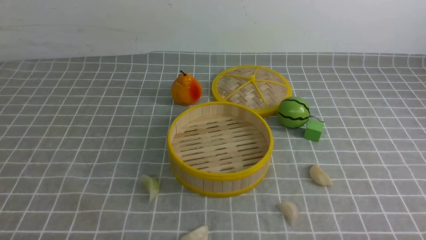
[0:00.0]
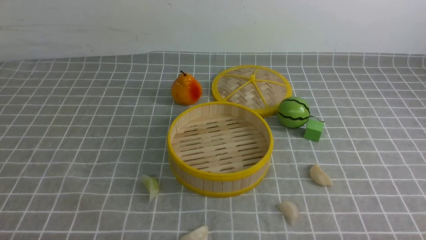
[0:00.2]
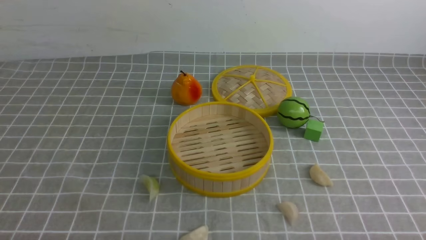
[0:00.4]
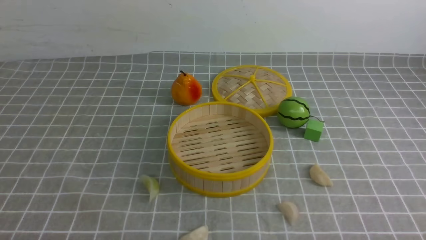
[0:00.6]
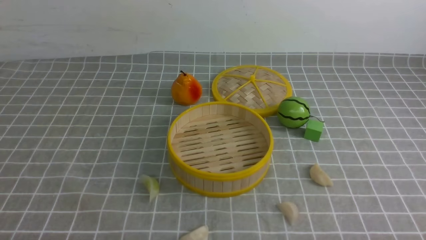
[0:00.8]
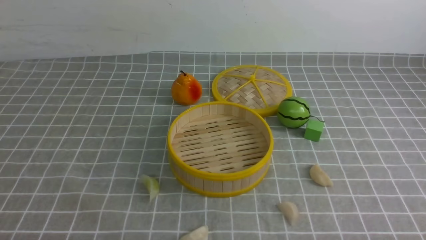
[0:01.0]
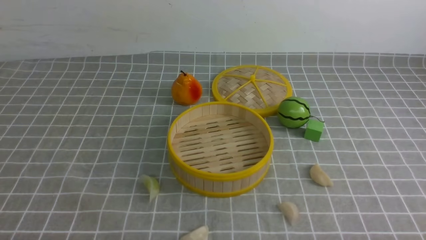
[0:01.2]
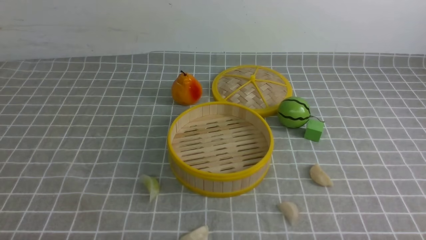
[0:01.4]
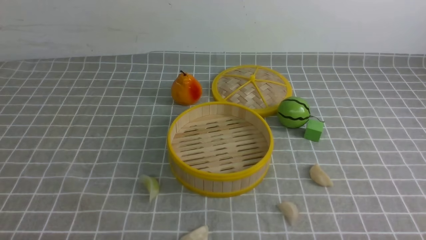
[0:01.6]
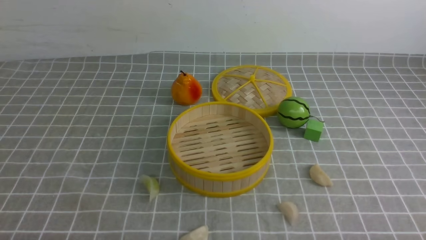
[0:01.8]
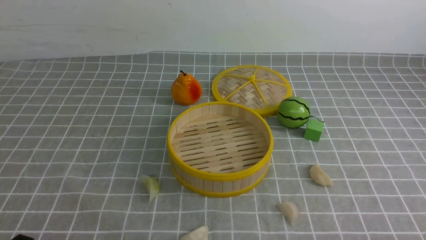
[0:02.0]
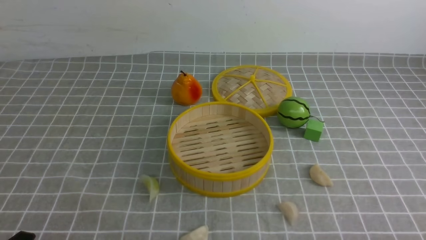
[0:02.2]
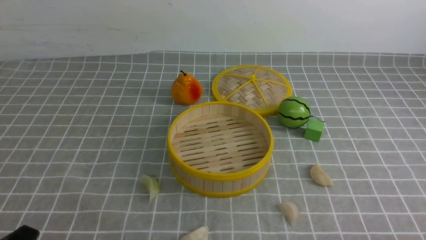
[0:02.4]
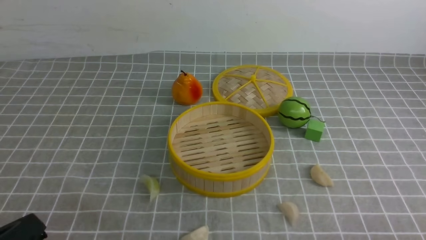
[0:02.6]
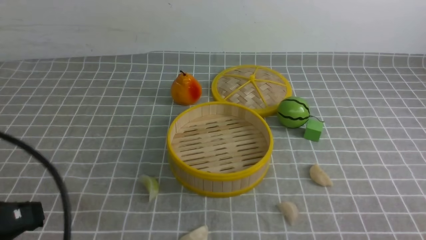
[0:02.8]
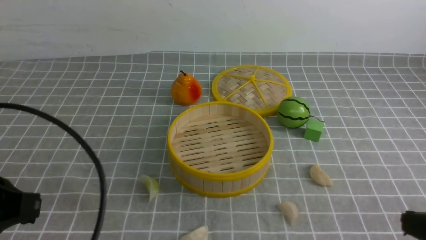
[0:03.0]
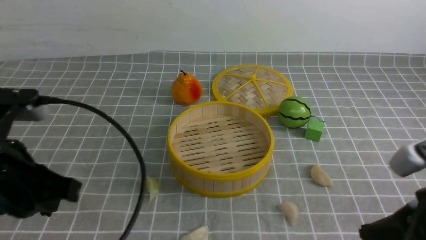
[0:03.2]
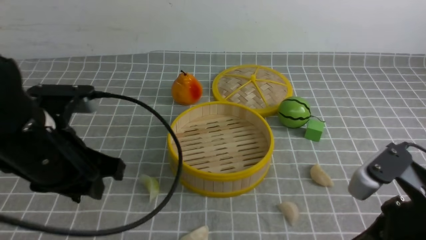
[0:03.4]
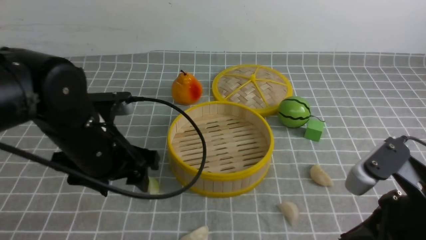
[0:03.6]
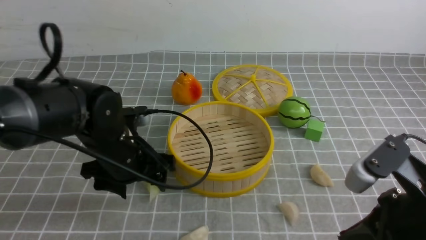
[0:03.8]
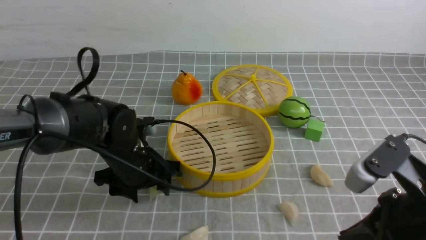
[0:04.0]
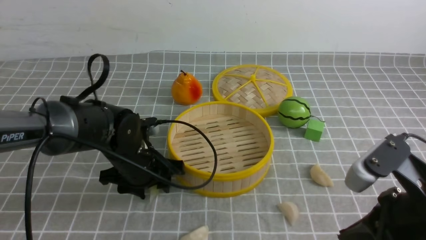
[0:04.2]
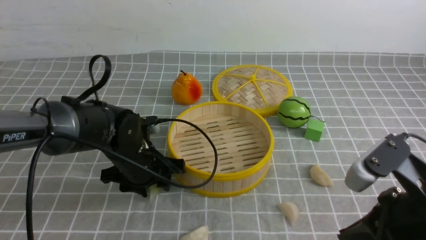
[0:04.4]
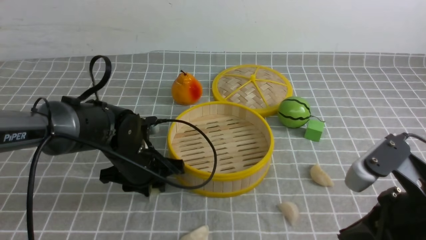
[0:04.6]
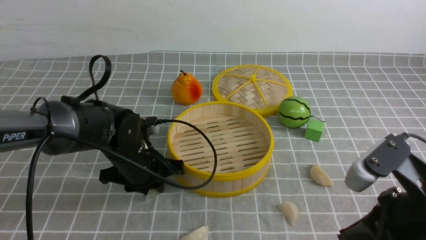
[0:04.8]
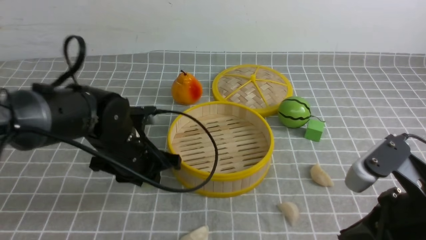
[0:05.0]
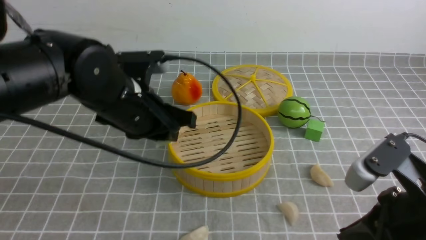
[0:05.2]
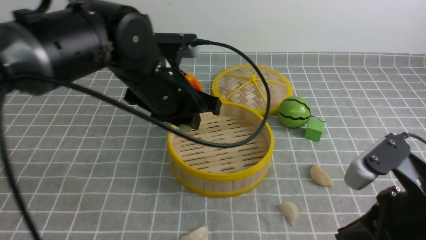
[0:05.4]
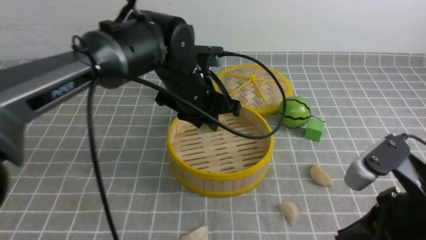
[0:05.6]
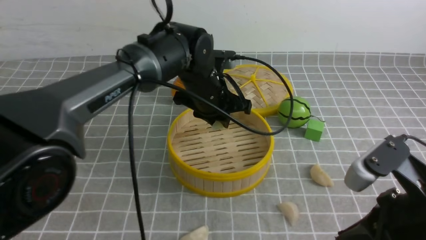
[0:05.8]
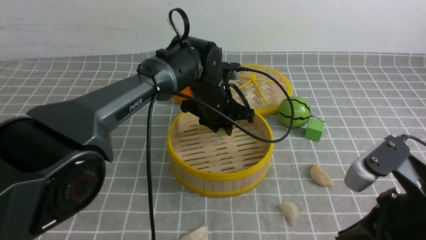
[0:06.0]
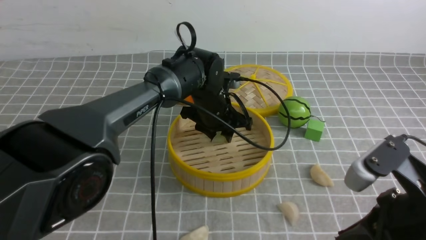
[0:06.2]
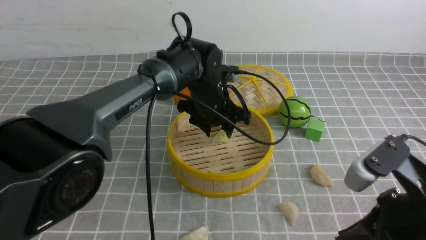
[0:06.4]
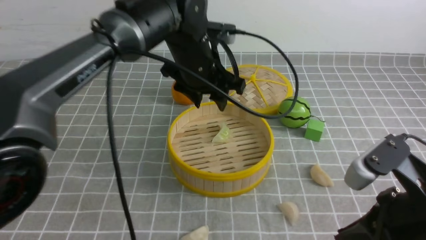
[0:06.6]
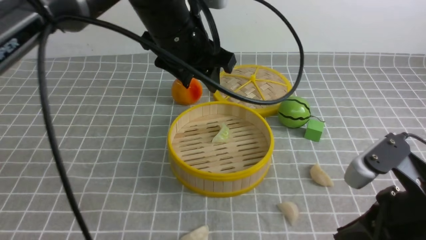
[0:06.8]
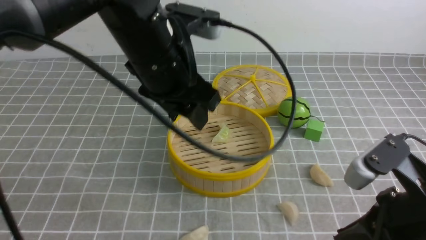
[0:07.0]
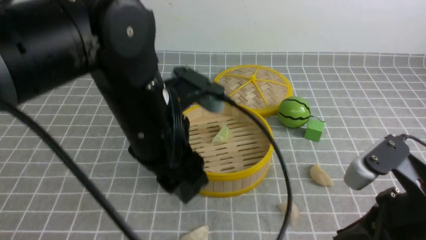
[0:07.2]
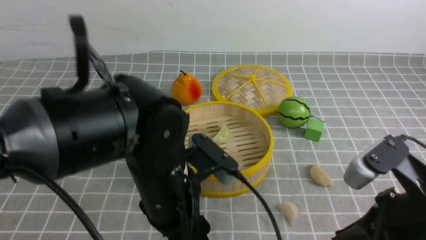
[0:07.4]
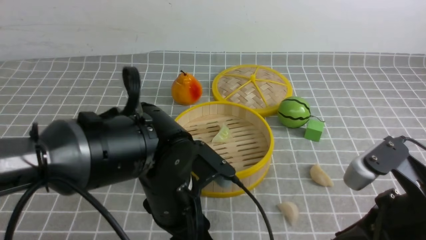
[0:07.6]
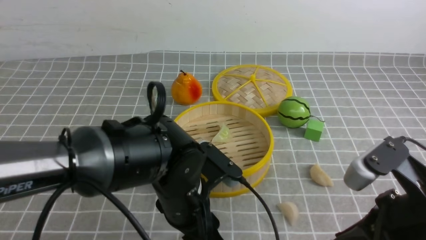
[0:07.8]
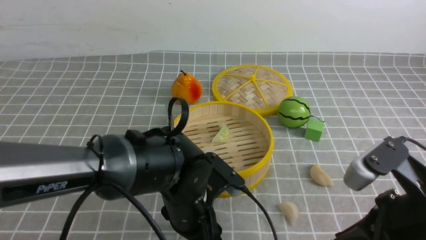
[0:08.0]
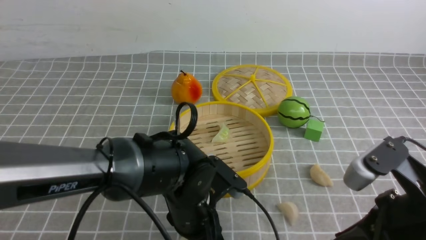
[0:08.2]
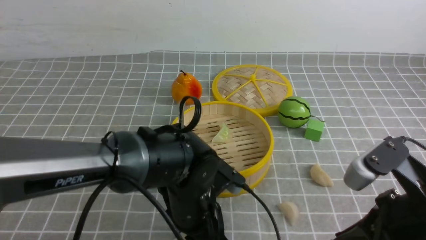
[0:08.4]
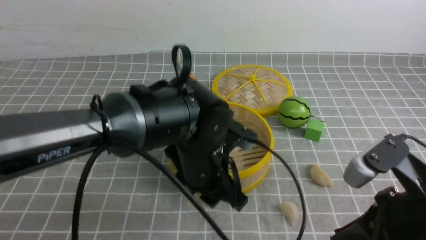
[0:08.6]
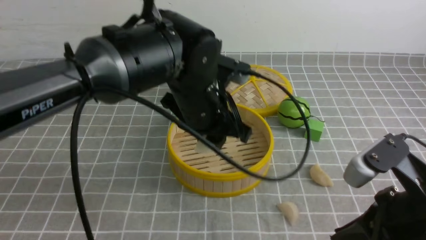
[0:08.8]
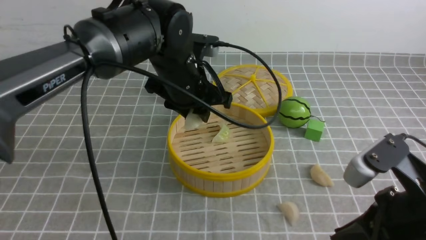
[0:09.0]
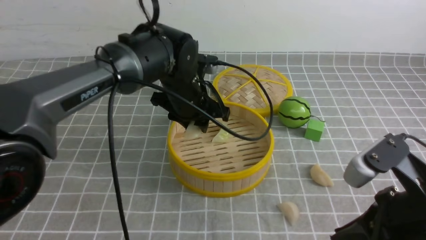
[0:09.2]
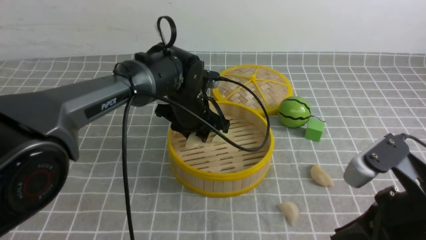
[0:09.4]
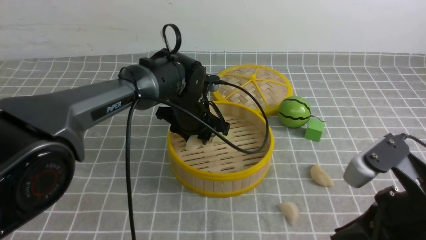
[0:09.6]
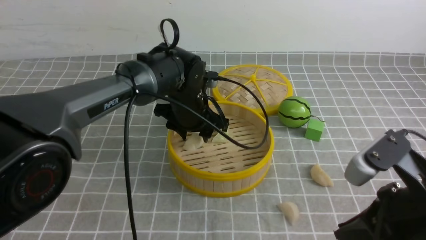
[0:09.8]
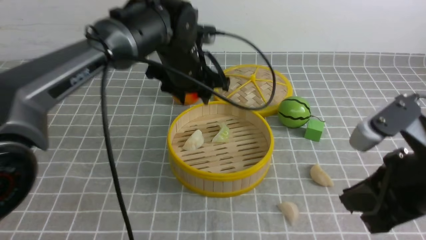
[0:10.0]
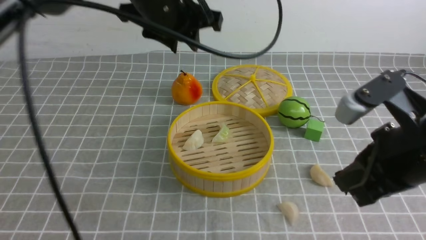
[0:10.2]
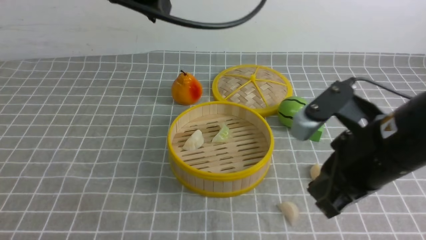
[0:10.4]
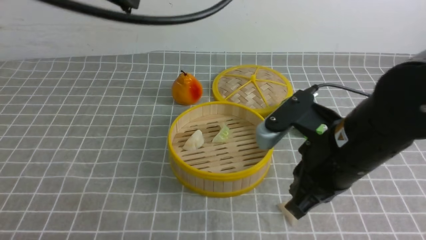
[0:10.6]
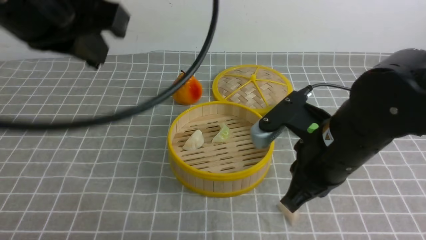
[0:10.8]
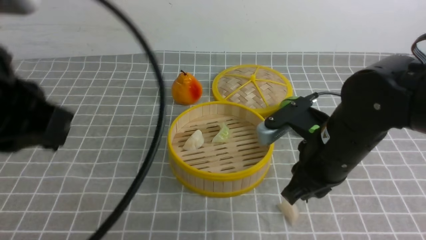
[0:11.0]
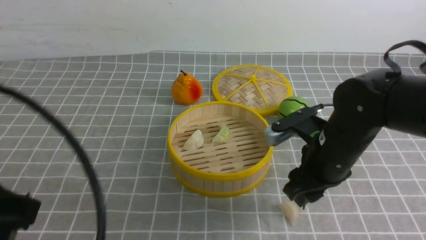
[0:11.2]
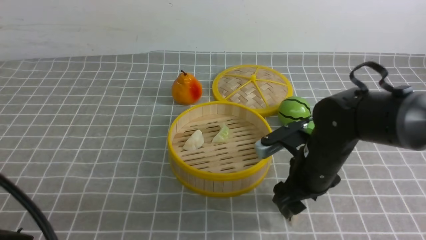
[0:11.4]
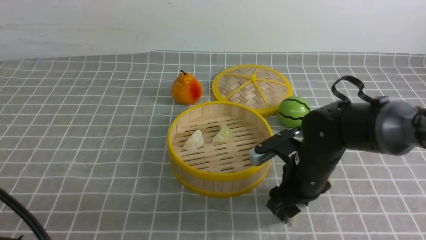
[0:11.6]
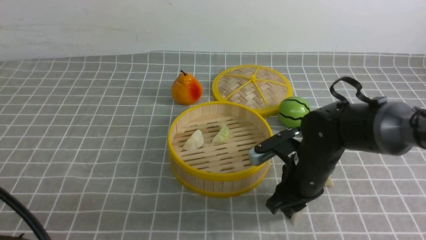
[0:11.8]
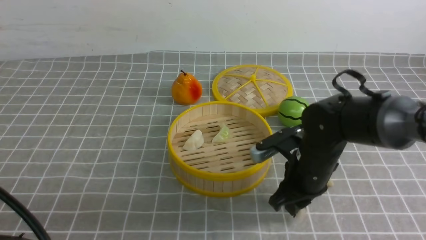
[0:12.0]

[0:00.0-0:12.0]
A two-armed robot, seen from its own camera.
Task of the whole recording: put the dumplings into the steamer on the table with the grey tablecloth.
Step, 0.0 to 4.8 s: use the left arm to grab a dumpling.
Step, 5.0 to 6.6 s: use the left arm to put the dumpling into the steamer.
Step, 6.8 to 8.2 s: use the left arm to grab a dumpling.
Step, 8.4 to 9.8 s: use the left arm to put the dumpling into the steamer.
Step, 10.2 to 12.0 s: use the right arm to grab a dumpling.
0.0 to 1.6 s: Both grippers stay put.
1.6 to 3.0 s: The grippers both shift upward and forward by approximately 15 cm. The left gripper closes up, while the right gripper closes its fingers.
3.0 to 4.4 s: The right gripper moves to the left, some 5 cm. The left gripper shifts roughly 30 cm forward, downward and to the right, and opens its fingers.
4.4 to 6.0 s: The left gripper goes approximately 15 cm to the right, forward and upward.
6.0 to 7.6 s: The left gripper goes some 20 cm backward, and opens.
7.6 to 9.0 s: The left gripper is displaced forward and upward by about 15 cm.
9.0 to 10.4 s: The right gripper heads forward, covering roughly 5 cm; the left gripper is displaced upward by about 20 cm.
10.4 to 12.0 s: The left gripper shifts roughly 30 cm backward, downward and to the left; the right gripper heads downward and forward, covering roughly 15 cm, and opens its fingers.

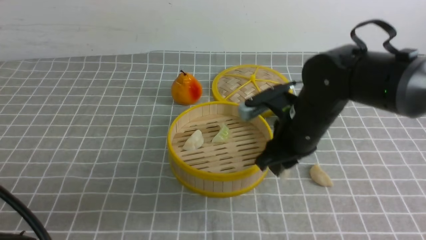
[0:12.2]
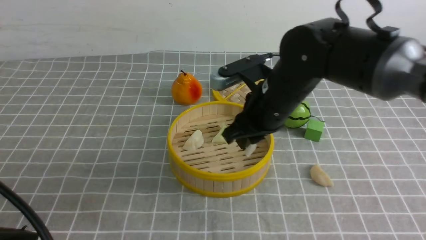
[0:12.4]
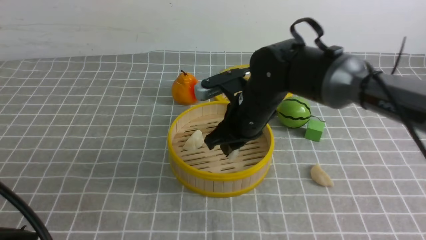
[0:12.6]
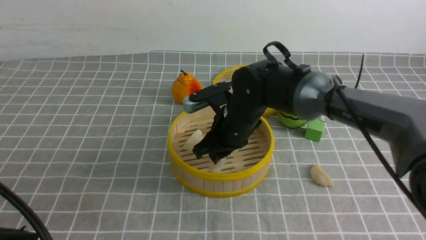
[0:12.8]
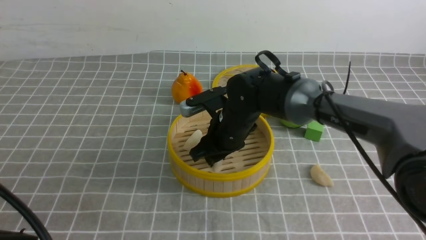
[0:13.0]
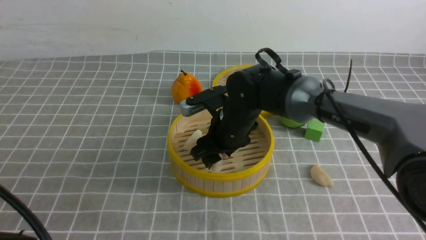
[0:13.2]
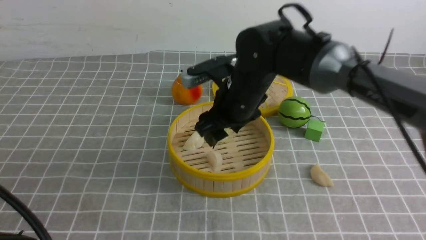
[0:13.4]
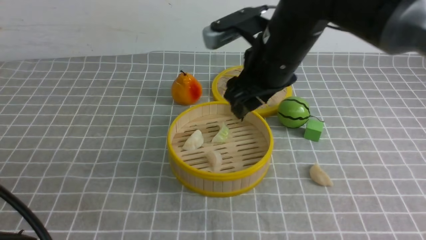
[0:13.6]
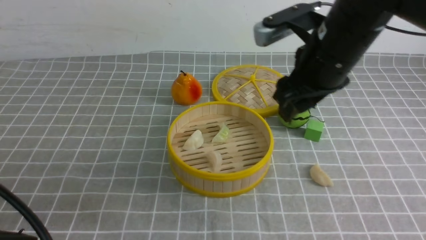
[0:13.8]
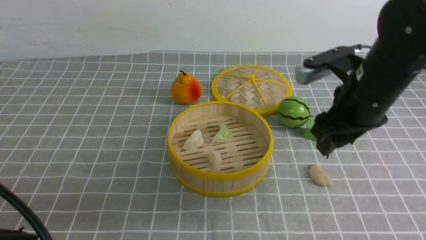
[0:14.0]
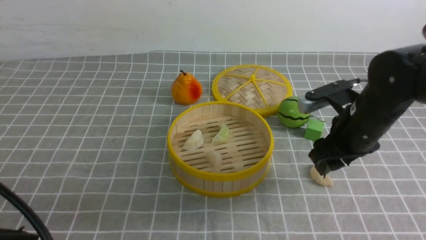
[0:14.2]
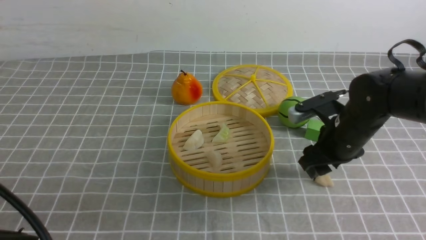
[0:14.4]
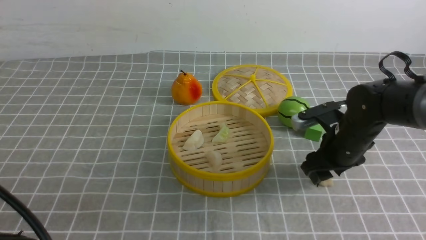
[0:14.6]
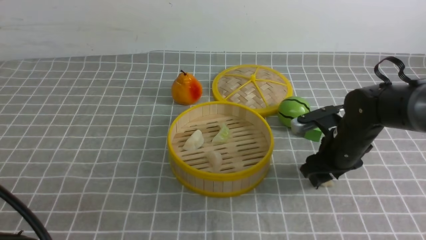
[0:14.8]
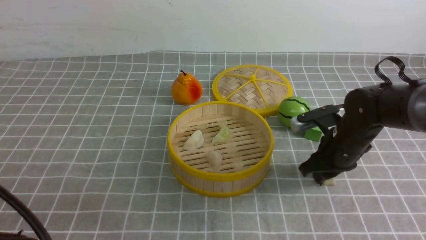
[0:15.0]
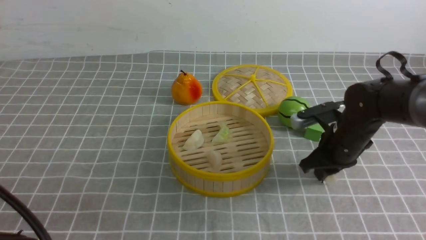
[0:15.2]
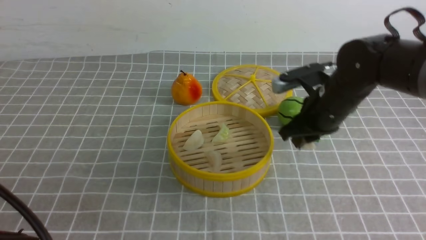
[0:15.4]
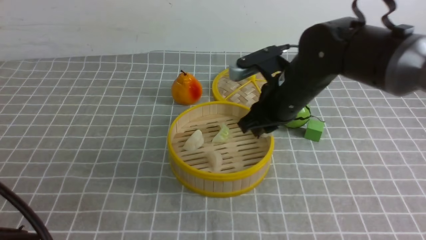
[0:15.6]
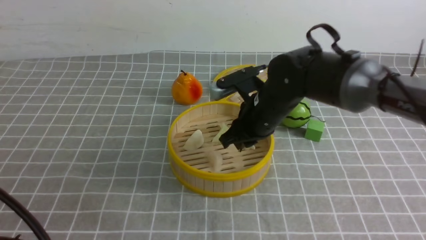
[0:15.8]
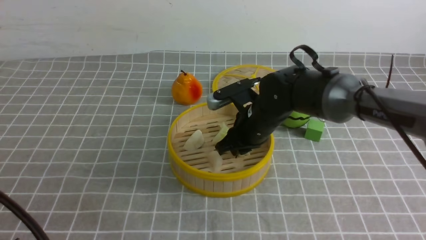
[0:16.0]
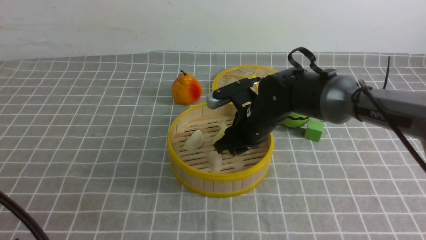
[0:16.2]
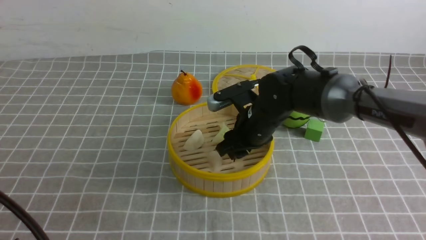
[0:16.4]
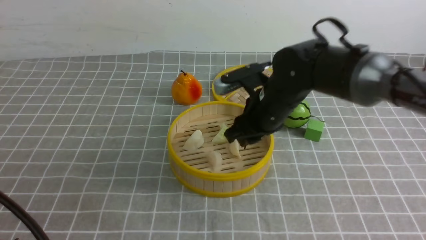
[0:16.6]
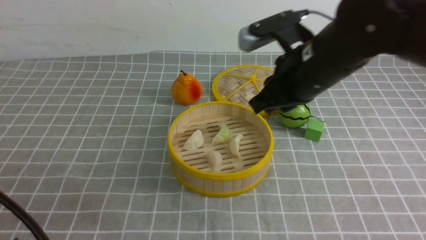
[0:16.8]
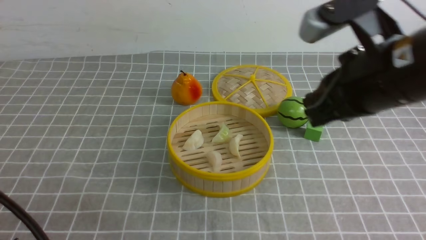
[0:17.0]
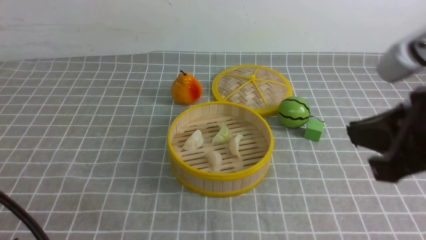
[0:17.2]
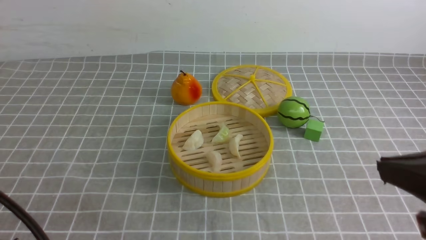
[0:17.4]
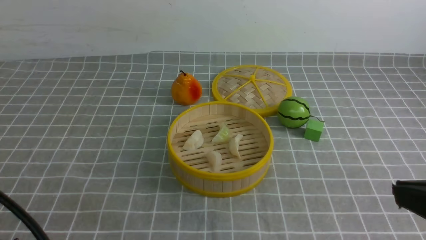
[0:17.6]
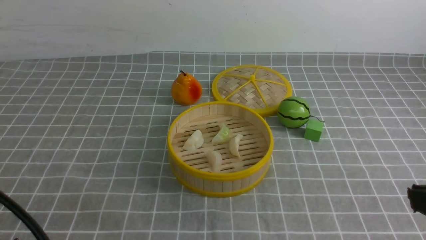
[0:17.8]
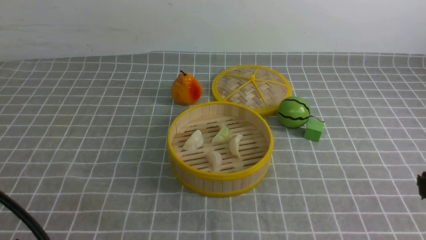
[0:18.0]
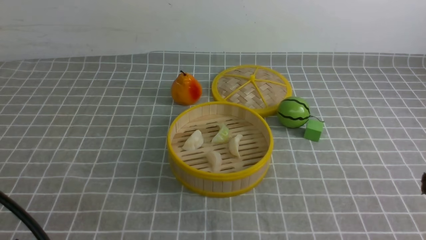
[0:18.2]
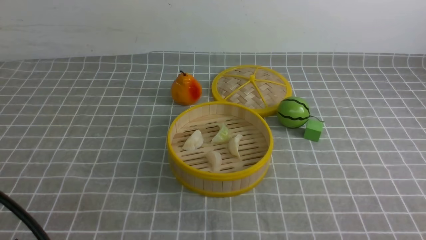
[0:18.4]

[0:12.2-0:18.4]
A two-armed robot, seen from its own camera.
Task of the whole recording: put the dumplings into the steamer on the table with the grey tablecloth.
Step, 12.2 to 13.4 s: use the right arm to put the dumpling into the steamer.
Step, 13.6 to 15.2 s: use the right arm to grab a dumpling.
Step, 15.4 to 16.8 s: use the right arm to put the dumpling into the steamer.
12.2 to 13.8 s: The right gripper is displaced upward by some 10 cm, and opens.
13.8 to 15.4 s: The right gripper travels downward by roughly 10 cm, and closes up.
15.4 to 16.8 s: The right gripper moves upward and backward, some 15 cm.
16.8 to 18.4 s: The right gripper is displaced backward and to the right by approximately 30 cm.
